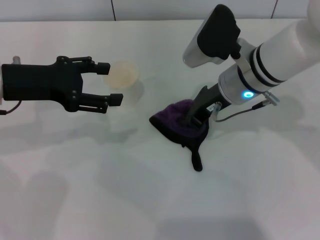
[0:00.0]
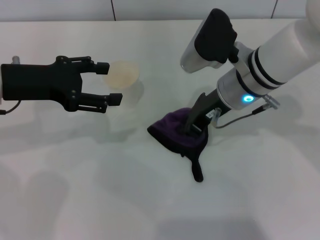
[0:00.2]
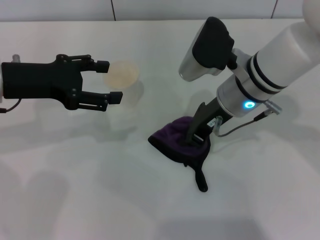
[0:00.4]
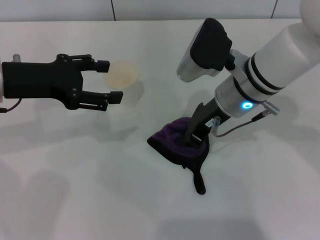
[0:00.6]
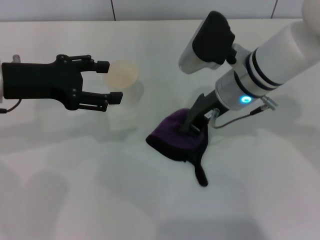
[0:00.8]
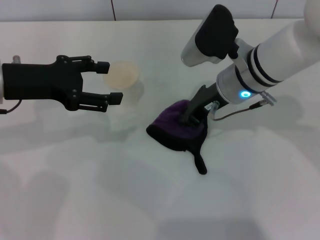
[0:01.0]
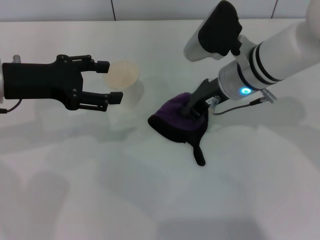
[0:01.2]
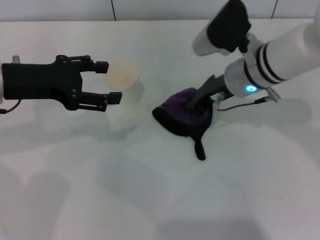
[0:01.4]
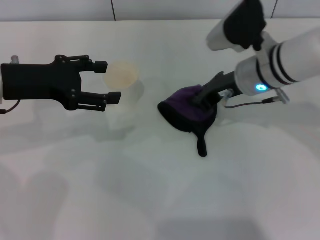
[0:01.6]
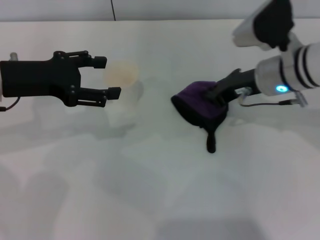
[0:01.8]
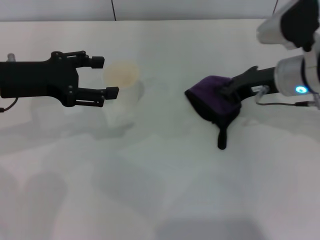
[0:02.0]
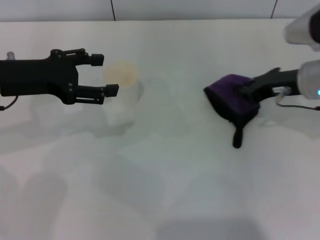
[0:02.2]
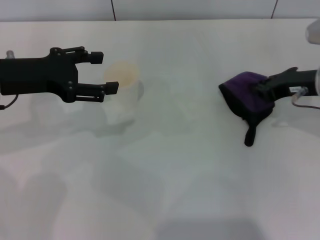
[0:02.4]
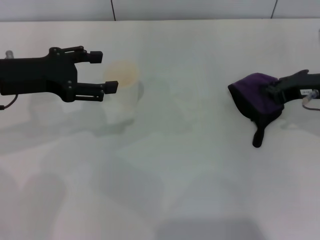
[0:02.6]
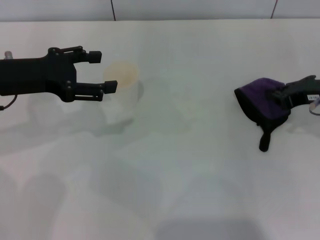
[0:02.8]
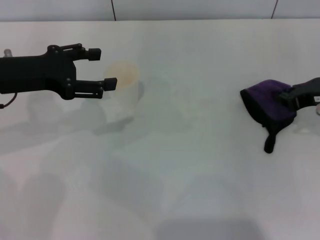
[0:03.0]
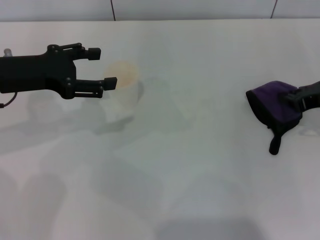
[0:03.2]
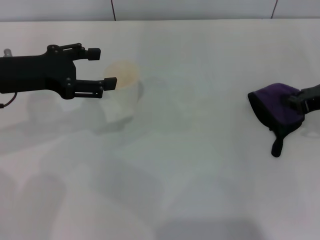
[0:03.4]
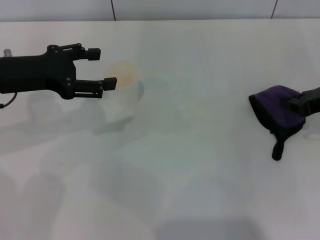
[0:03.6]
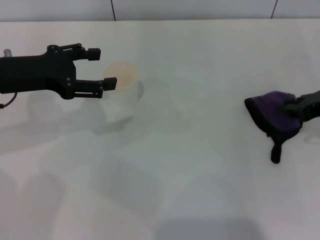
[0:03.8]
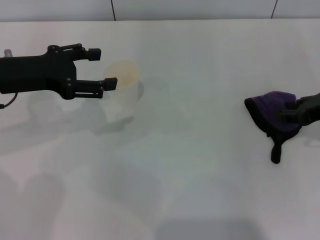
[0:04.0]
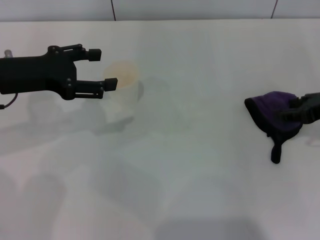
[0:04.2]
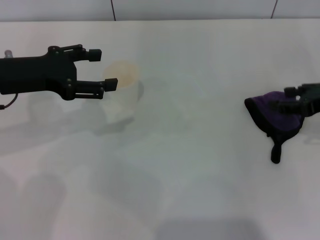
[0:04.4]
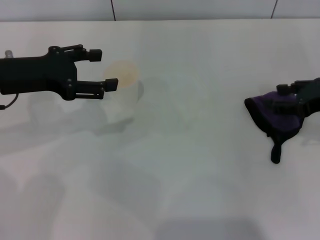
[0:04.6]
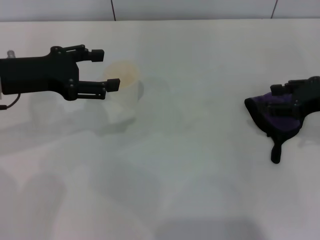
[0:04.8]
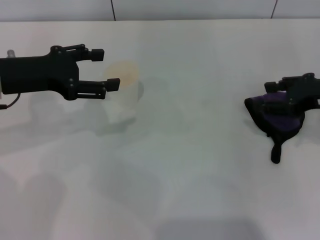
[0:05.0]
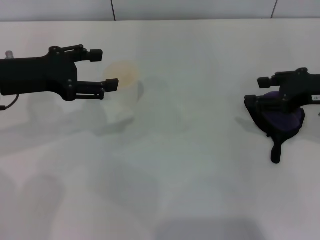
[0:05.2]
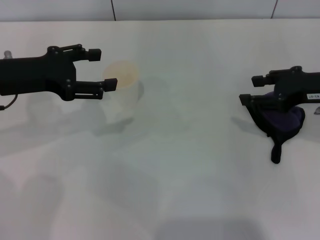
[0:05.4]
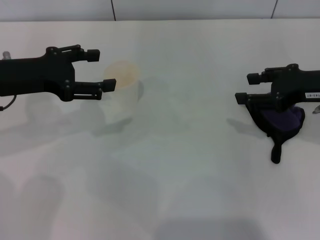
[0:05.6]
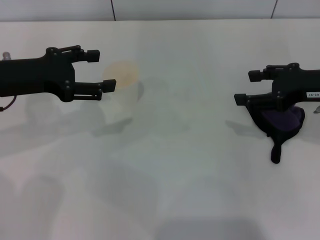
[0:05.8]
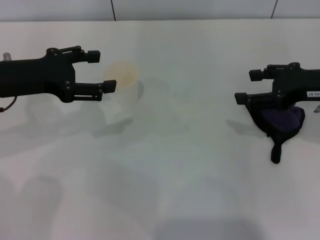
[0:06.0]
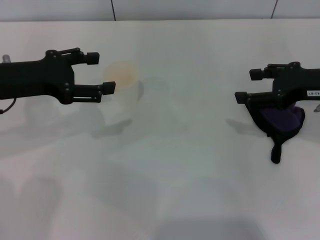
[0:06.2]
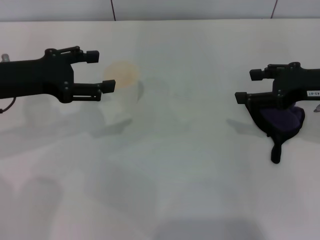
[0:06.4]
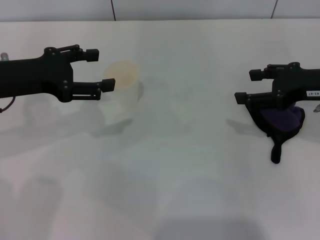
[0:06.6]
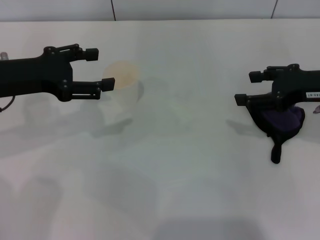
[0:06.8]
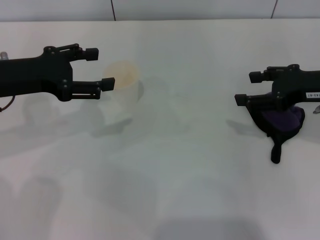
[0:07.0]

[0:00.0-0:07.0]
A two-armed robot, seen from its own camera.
Step, 0:00.0 to 0:02.8: Wipe the stains off the table with the right gripper.
Step, 0:03.0 to 0:04.4: Place the rag on the table with the right gripper.
0:00.0 to 0:01.4: The grippers stay close to where they were, moving slightly.
0:01.4 to 0:02.8: The right gripper travels to the right by some 15 cm.
0:02.8 to 0:04.2: The right gripper opens its fingers.
0:05.6 to 0:07.0: The two grippers keep their place.
